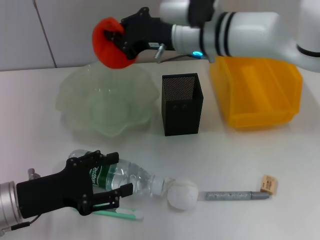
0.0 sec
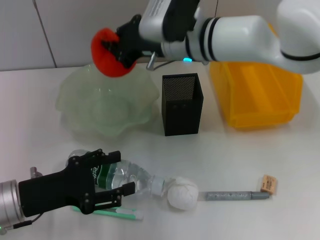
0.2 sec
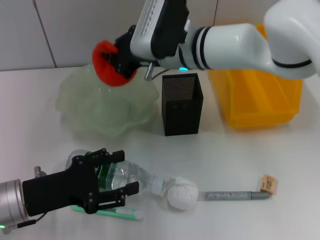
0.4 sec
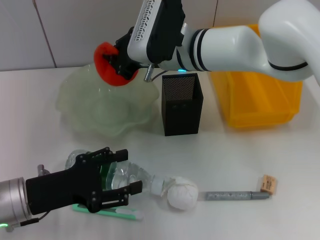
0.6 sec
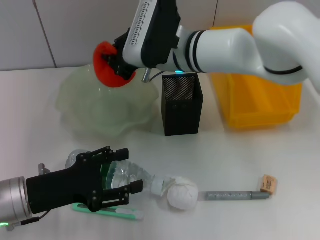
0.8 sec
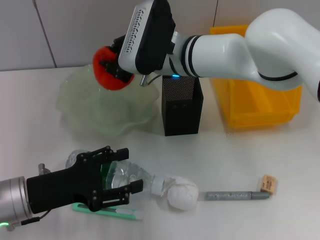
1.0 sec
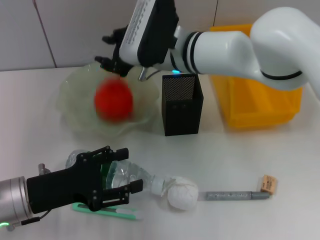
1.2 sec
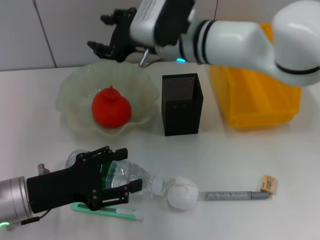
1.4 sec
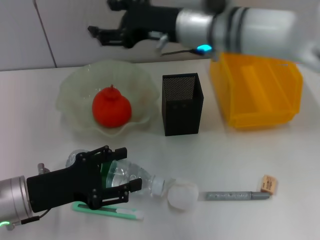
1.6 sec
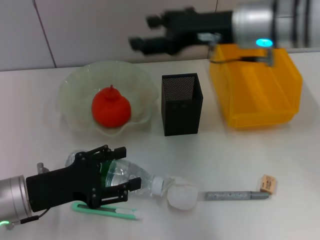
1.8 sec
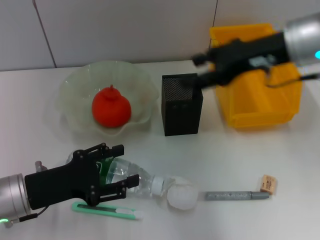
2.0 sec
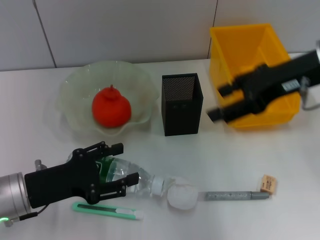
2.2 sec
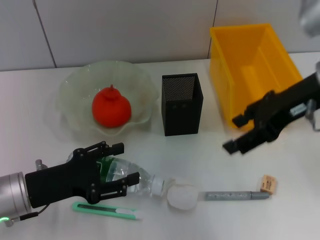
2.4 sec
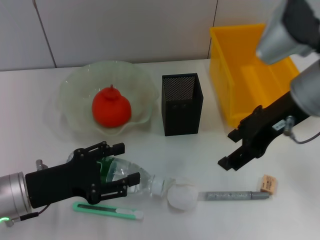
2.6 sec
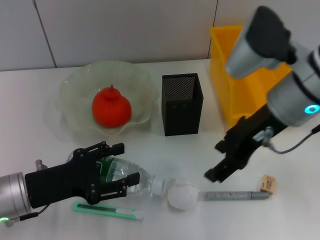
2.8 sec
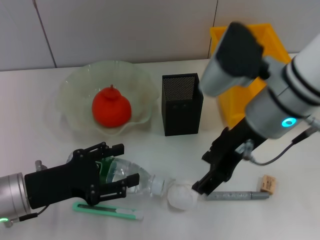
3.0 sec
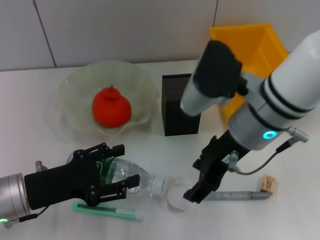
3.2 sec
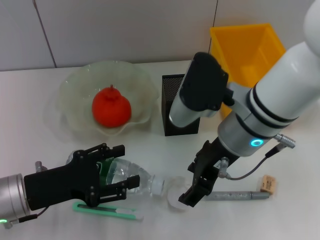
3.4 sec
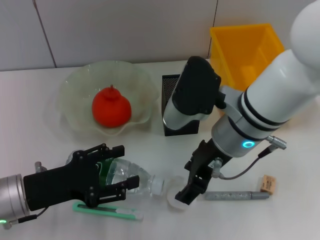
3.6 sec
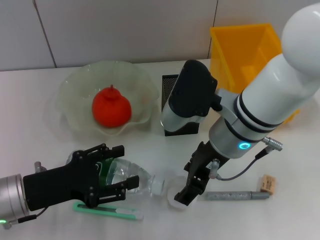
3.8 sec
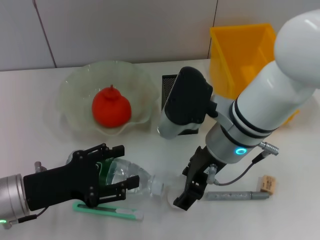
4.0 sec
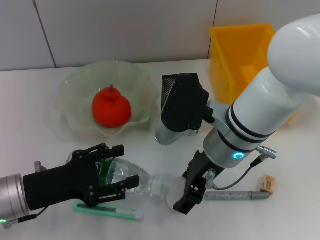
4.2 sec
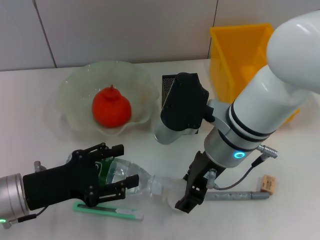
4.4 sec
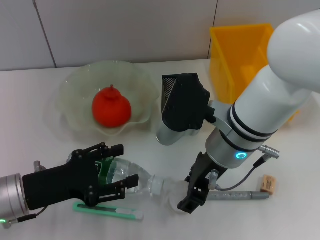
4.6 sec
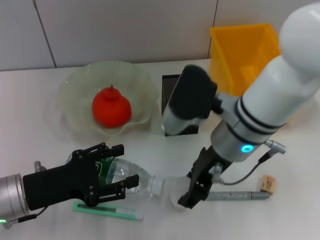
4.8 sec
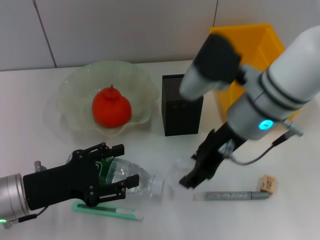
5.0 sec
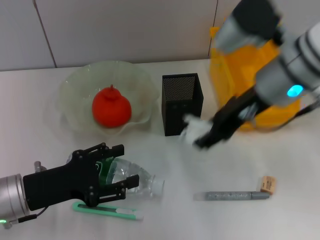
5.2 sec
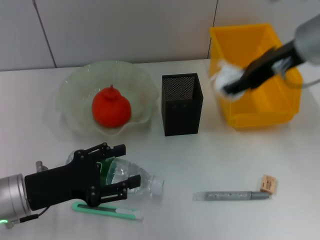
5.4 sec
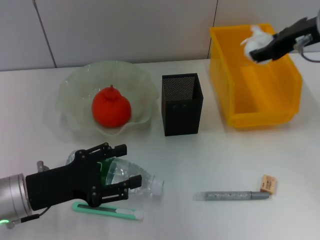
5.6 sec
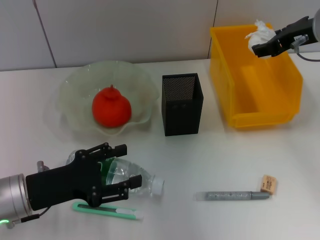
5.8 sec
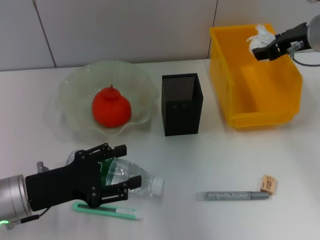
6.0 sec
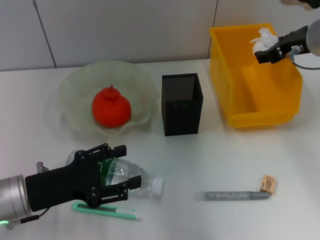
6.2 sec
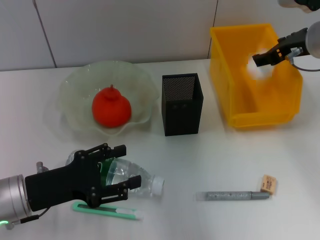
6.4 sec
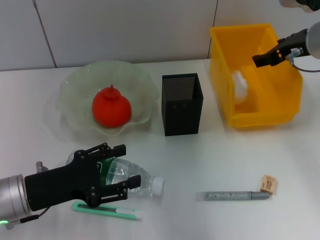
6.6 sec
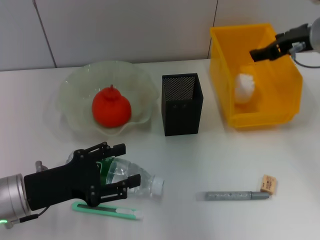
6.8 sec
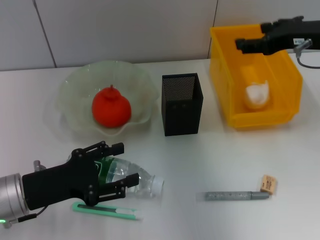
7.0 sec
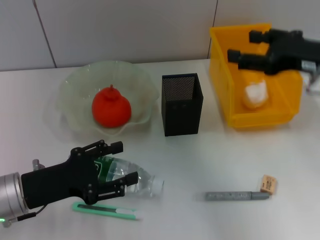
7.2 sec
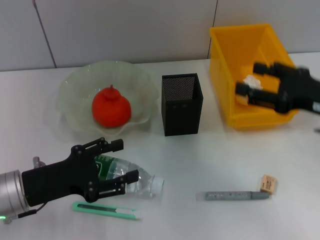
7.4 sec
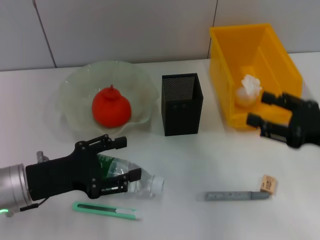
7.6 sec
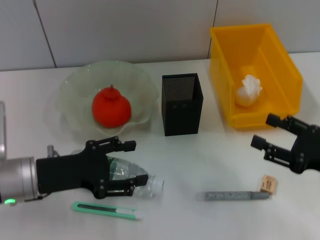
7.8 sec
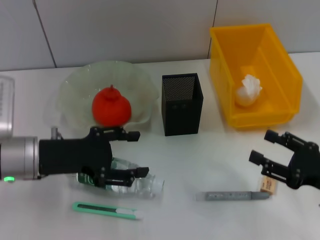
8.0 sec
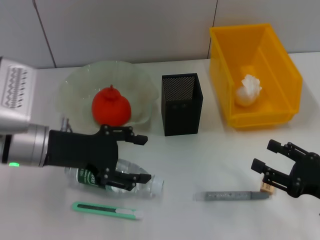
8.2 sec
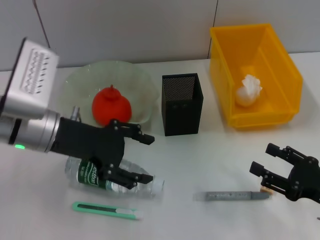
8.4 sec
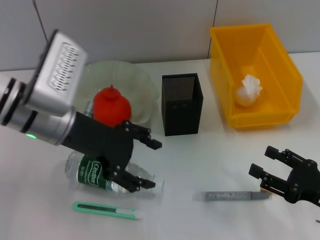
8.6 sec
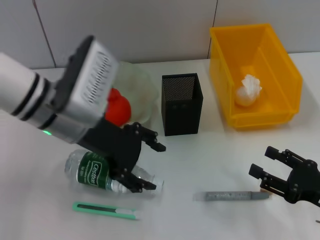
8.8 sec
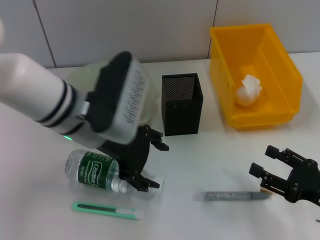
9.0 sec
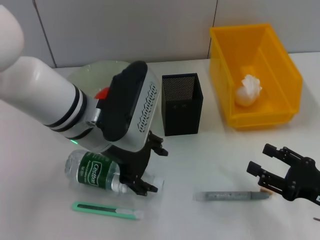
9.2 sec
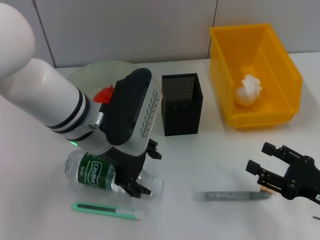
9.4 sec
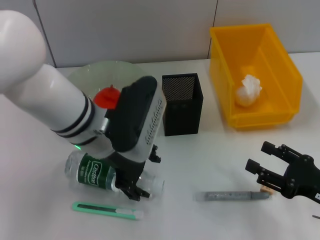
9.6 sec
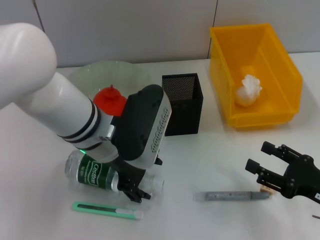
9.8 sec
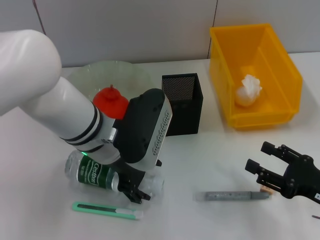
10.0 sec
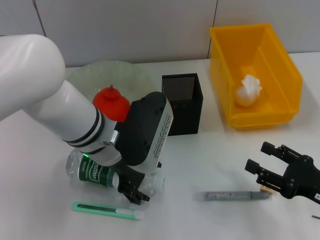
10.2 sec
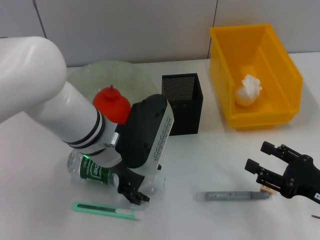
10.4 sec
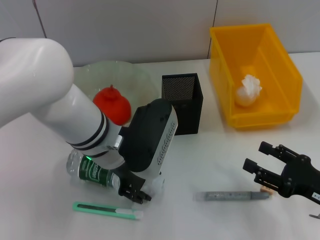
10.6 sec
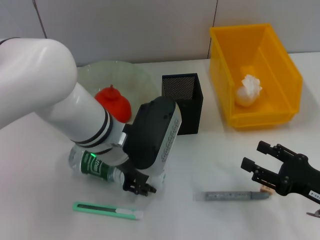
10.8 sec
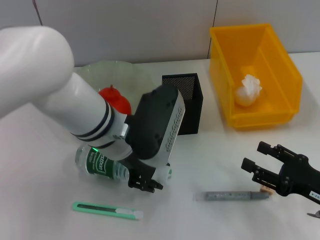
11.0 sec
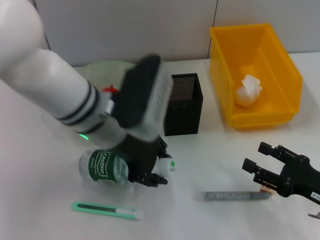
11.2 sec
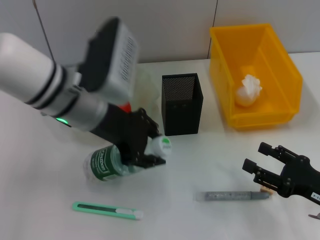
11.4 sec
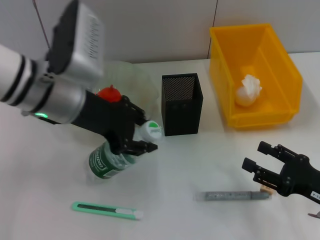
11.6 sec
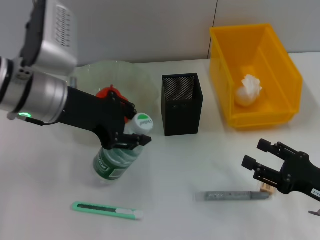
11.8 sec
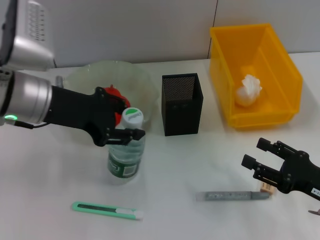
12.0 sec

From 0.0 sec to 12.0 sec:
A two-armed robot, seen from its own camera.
Step, from 0.0 sec to 1.6 sec: Place the orange into the fruit bowl with the right hand.
Step, from 2.0 sec to 4.4 sec: Grab the paper ball with the right hand.
Step, from 4.6 sec to 6.6 sec: Place the paper ball into the trash can with the right hand.
Step, from 7.0 sec to 10.6 sec: Grab the water bottle with the left hand.
From 0.0 sec to 1.6 sec: The right gripper opens up.
From 1.6 sec to 3.0 sec: The right gripper is displaced backward by roughly 10 cm, and travels to the right and back again, roughly 15 cm each way.
From 3.0 sec to 4.4 sec: The right gripper is displaced downward by approximately 5 cm.
From 4.4 sec to 6.0 sec: The right gripper heads to the right and forward, covering approximately 20 cm.
From 6.0 sec to 7.6 sec: The right gripper heads backward and downward, covering some 20 cm.
From 7.6 sec to 9.0 sec: The left gripper moves to the right, upward and forward, about 15 cm, while the right gripper travels downward and backward by roughly 10 cm.
From 9.0 sec to 10.4 sec: There are only small adjustments of the grippers.
From 10.4 sec to 12.0 sec: The left gripper shifts approximately 10 cm to the left and upward, and closes its fingers.

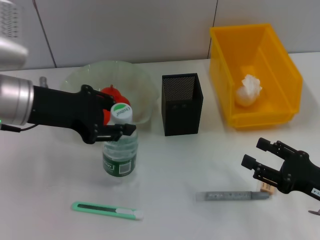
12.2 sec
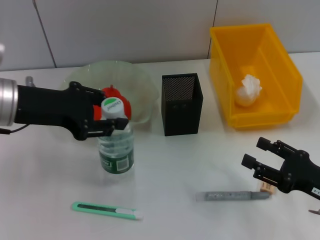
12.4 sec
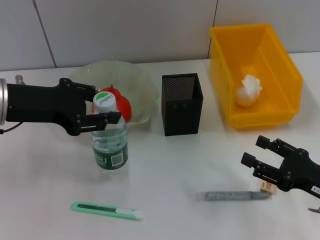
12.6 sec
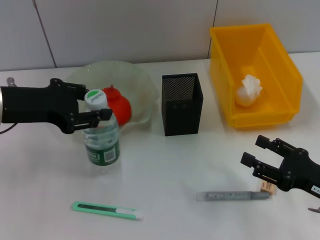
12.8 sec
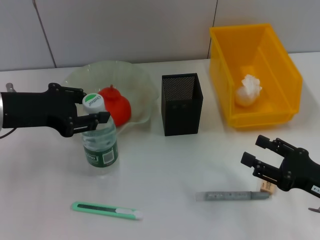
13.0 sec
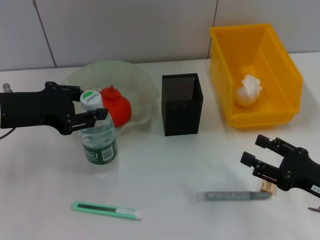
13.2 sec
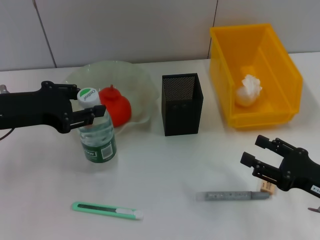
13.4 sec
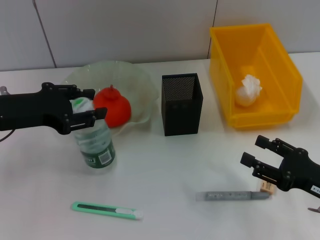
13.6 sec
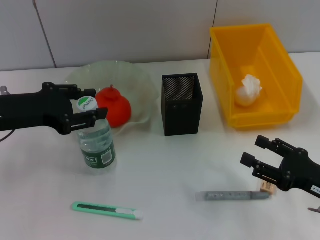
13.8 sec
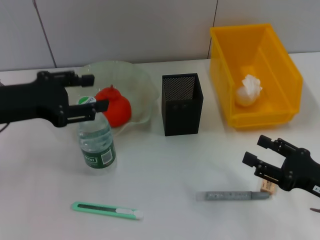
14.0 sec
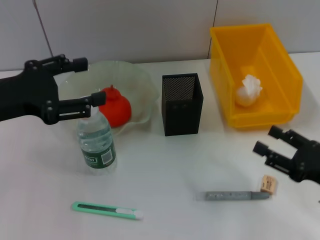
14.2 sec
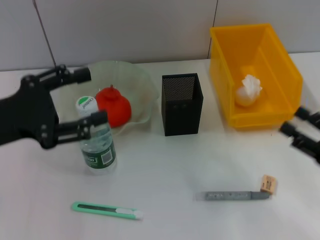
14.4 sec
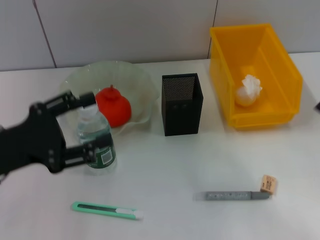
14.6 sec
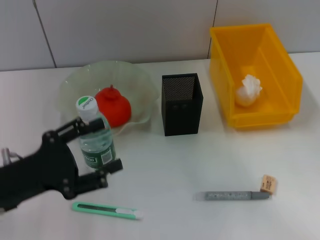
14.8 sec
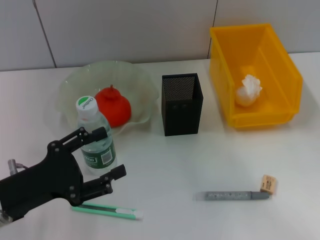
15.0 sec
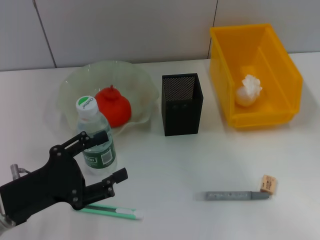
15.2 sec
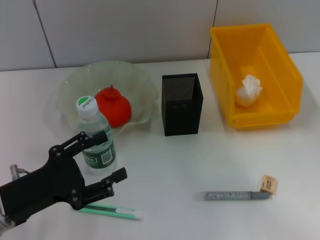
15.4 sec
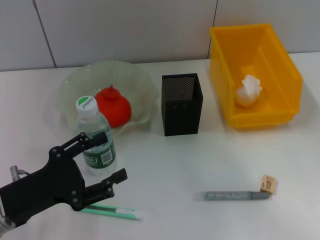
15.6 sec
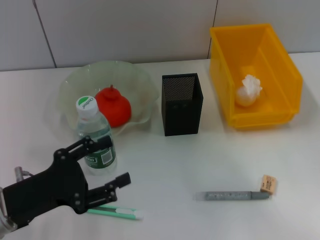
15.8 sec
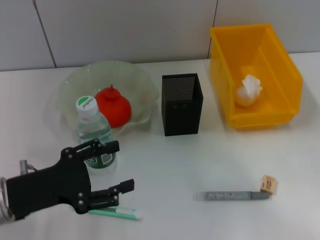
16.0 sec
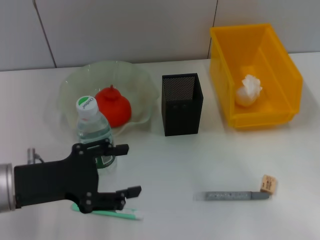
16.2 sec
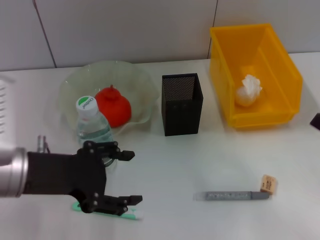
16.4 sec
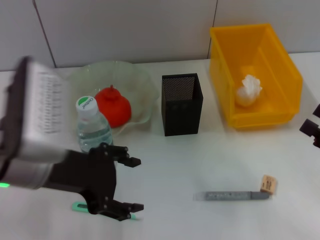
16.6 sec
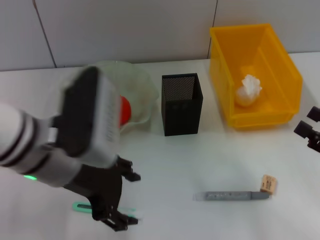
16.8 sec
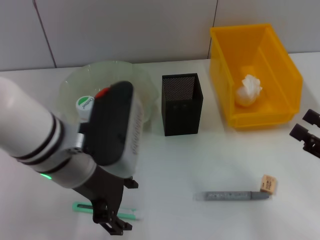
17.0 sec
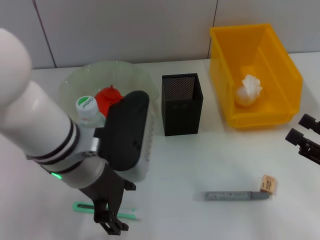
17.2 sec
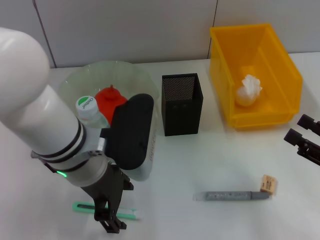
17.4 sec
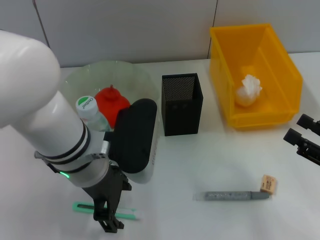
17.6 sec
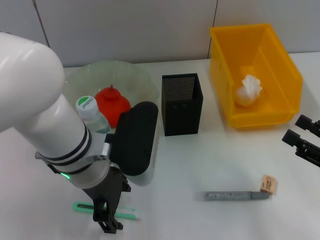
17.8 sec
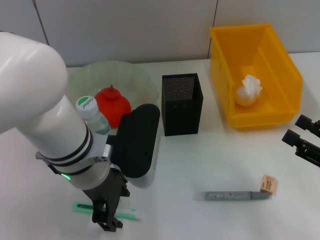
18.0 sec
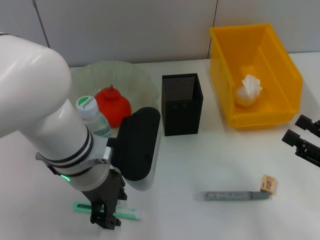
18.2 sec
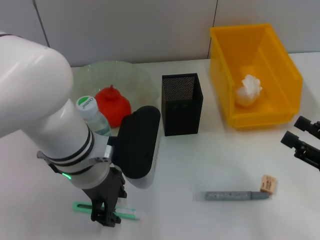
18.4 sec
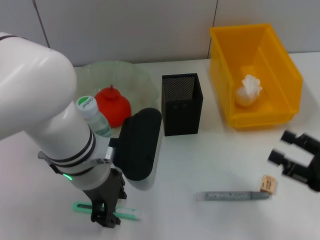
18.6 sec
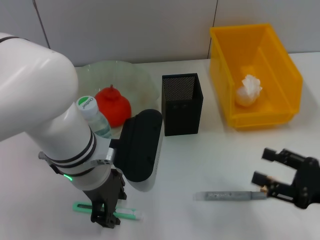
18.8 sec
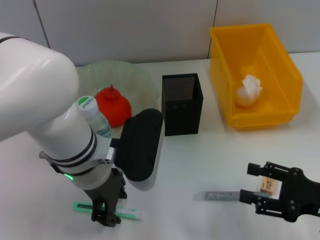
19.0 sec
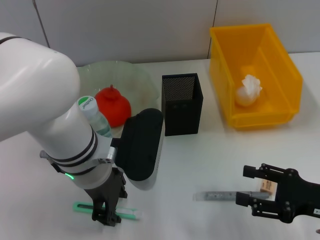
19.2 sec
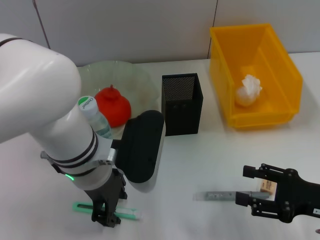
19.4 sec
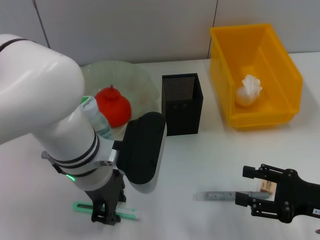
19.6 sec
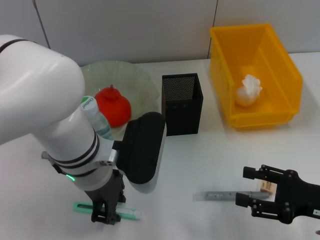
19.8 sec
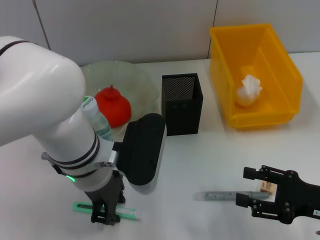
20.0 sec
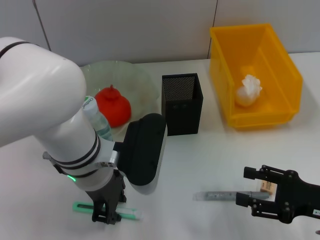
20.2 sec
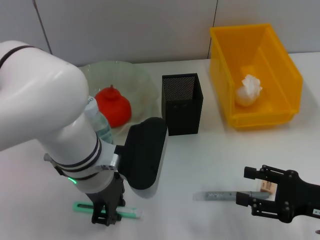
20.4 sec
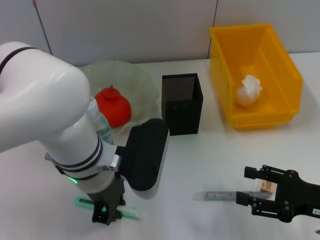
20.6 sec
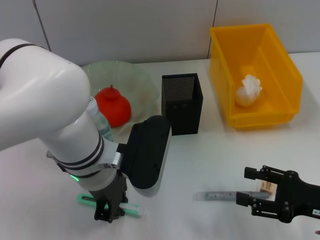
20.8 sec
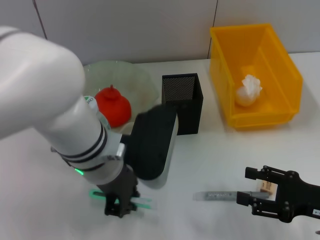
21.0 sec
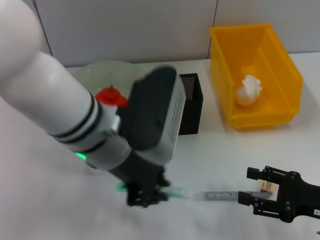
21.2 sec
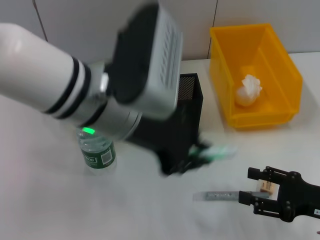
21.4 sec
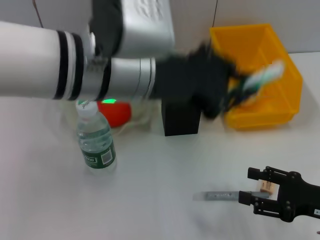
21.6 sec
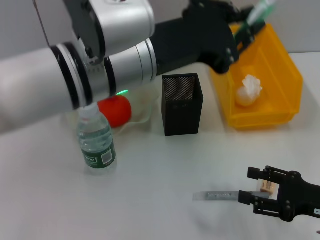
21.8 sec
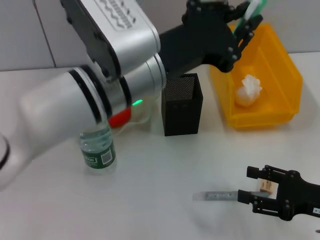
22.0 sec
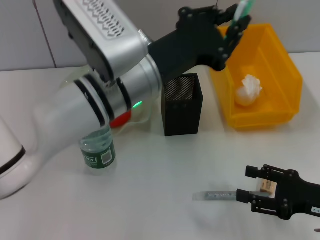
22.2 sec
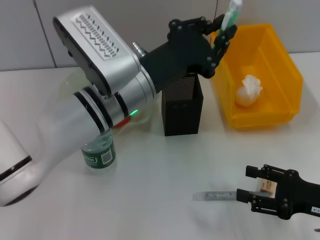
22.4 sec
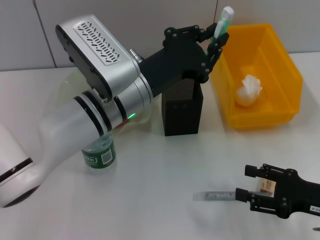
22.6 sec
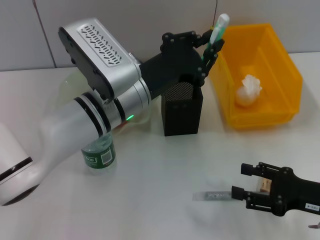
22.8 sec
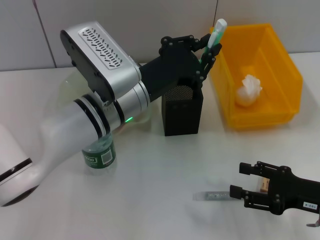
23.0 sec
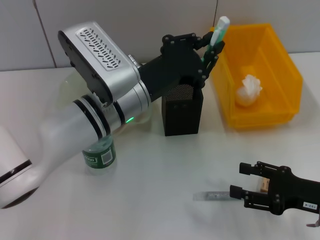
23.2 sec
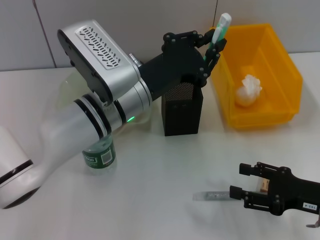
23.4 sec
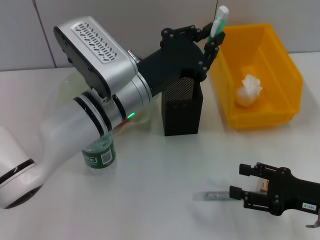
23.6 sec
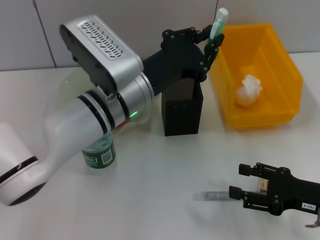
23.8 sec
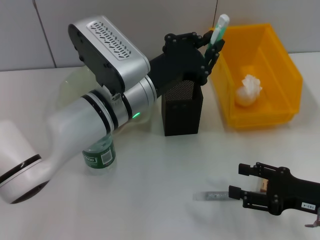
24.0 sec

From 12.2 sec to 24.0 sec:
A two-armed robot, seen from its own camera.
Step, from 12.2 sec to 14.4 sec: Place the water bottle on the table with the left hand.
Step, from 14.6 sec to 20.6 sec: Grab the blue utility knife with the left hand.
From 12.2 sec to 13.6 sec: The left gripper changes place by some 5 cm.
From 13.6 sec to 15.2 sec: The right gripper travels upward and to the right by some 10 cm. The left gripper goes approximately 15 cm backward and downward, and opens.
From 15.2 sec to 16.6 sec: The left gripper is displaced upward and to the right by some 15 cm.
From 16.6 sec to 18.2 sec: The left gripper is displaced to the right by approximately 10 cm.
From 18.2 sec to 19.6 sec: The left gripper closes up.
From 19.6 sec to 21.0 sec: The left gripper closes its fingers.
From 21.0 sec to 22.6 sec: The left gripper goes upward and returns, some 10 cm each way.
From 22.6 sec to 24.0 sec: The grippers stay close to where they were, moving slightly.
